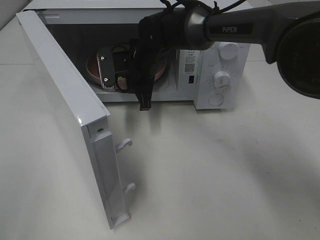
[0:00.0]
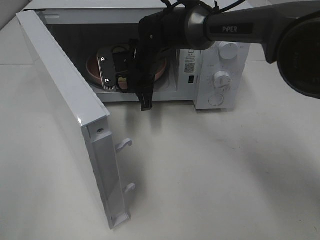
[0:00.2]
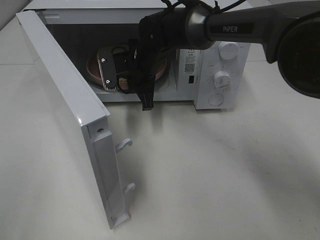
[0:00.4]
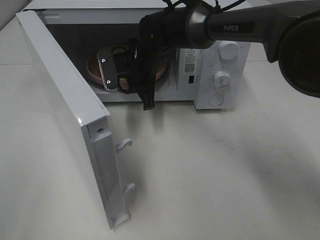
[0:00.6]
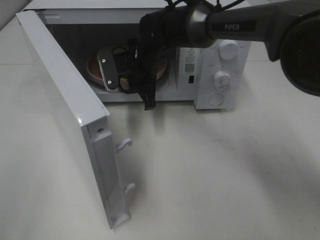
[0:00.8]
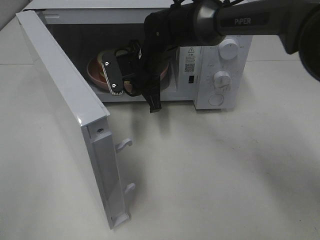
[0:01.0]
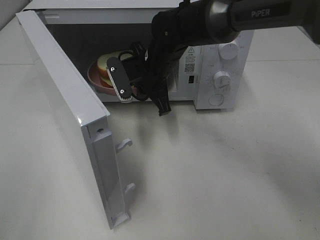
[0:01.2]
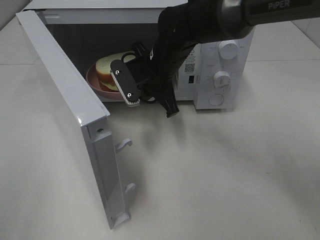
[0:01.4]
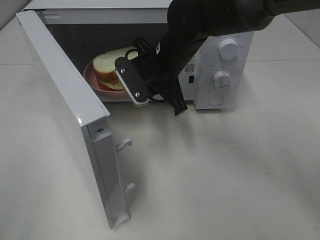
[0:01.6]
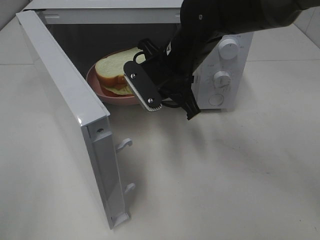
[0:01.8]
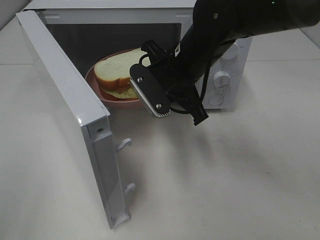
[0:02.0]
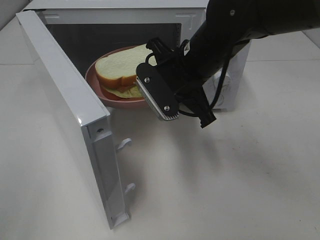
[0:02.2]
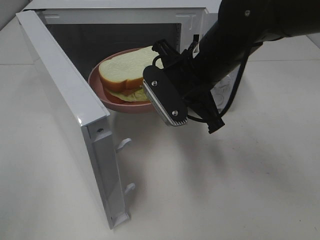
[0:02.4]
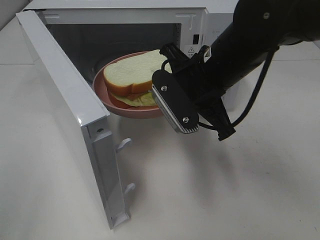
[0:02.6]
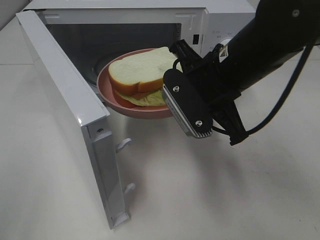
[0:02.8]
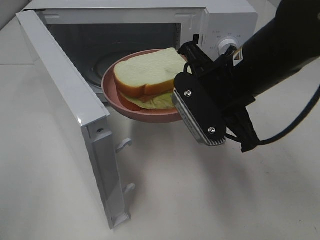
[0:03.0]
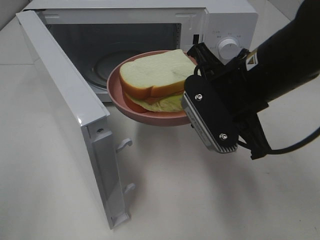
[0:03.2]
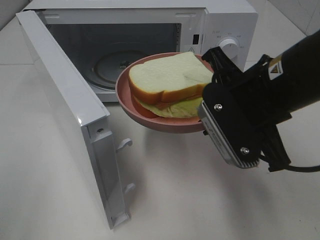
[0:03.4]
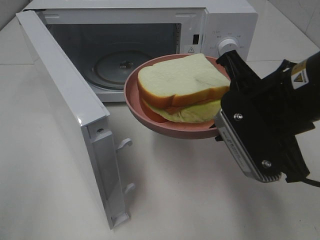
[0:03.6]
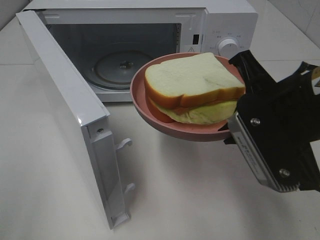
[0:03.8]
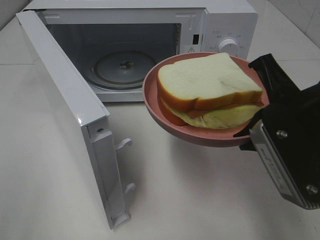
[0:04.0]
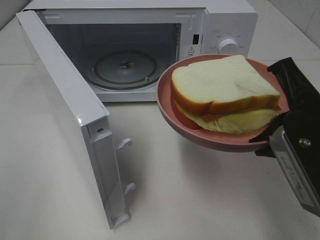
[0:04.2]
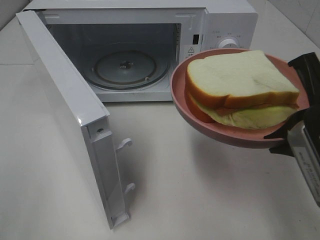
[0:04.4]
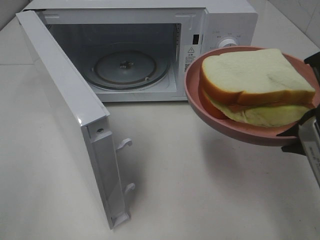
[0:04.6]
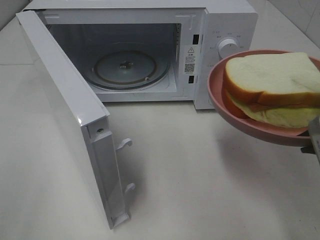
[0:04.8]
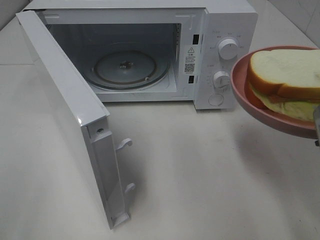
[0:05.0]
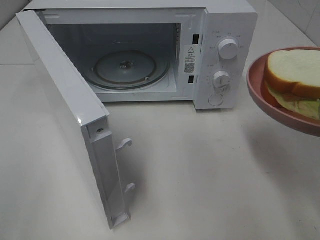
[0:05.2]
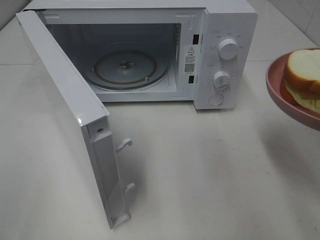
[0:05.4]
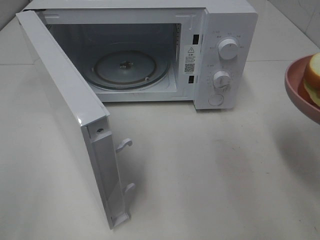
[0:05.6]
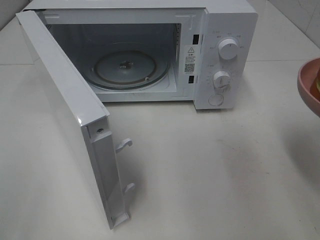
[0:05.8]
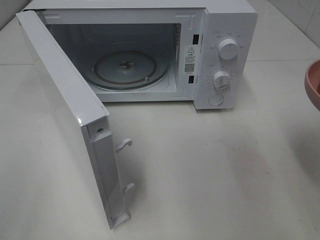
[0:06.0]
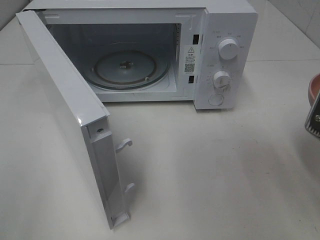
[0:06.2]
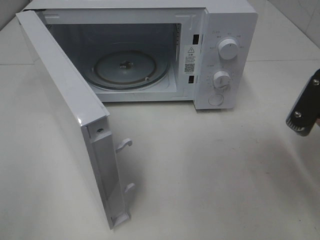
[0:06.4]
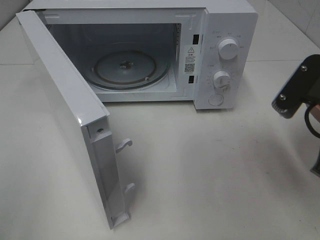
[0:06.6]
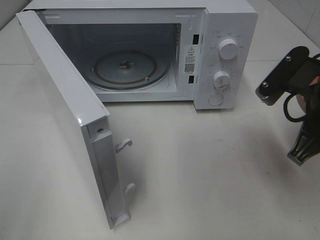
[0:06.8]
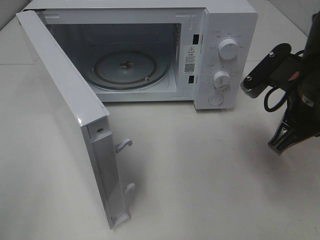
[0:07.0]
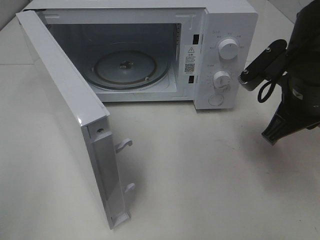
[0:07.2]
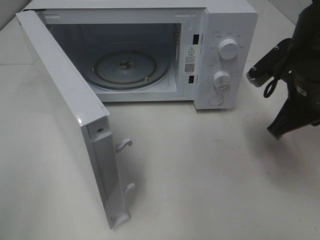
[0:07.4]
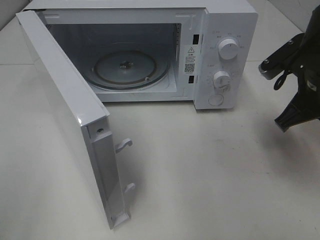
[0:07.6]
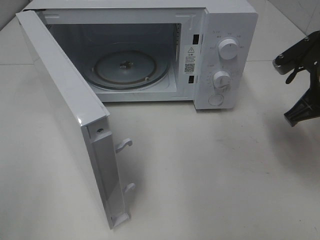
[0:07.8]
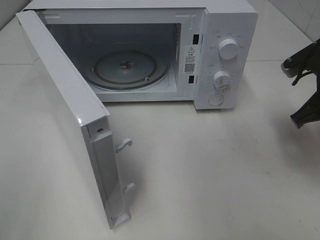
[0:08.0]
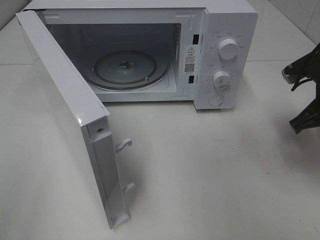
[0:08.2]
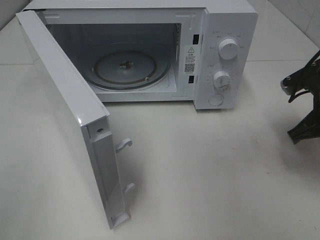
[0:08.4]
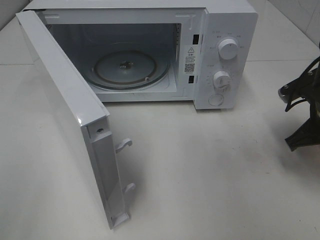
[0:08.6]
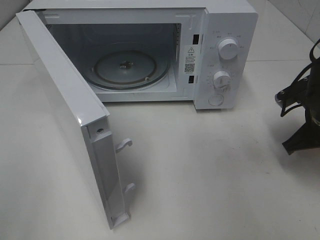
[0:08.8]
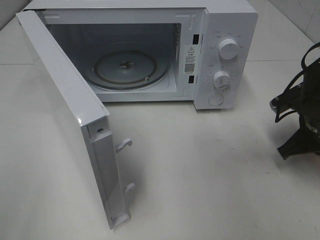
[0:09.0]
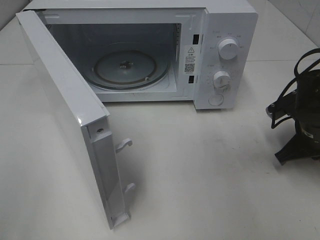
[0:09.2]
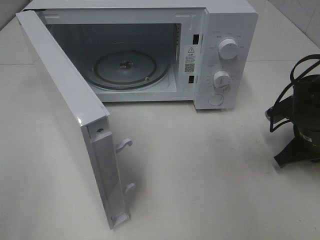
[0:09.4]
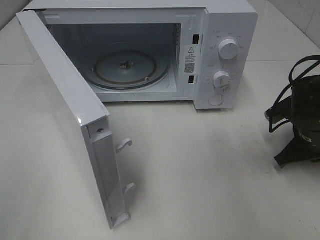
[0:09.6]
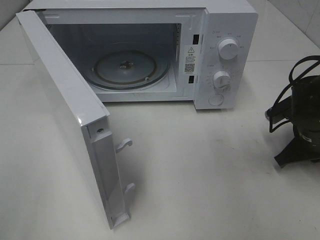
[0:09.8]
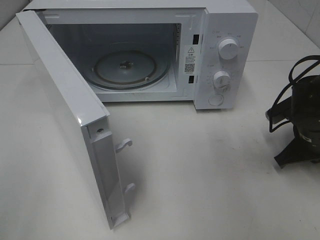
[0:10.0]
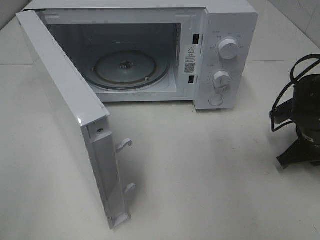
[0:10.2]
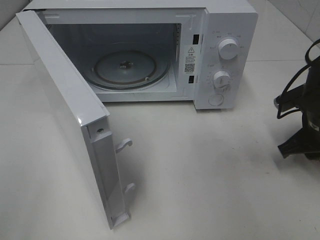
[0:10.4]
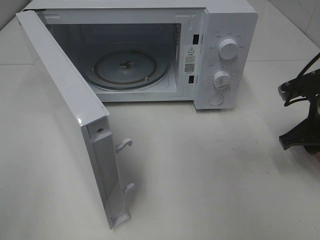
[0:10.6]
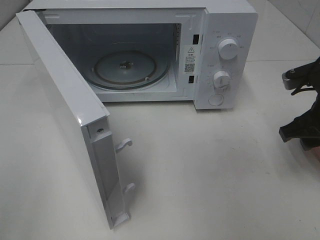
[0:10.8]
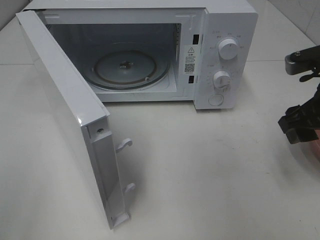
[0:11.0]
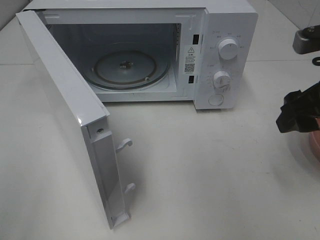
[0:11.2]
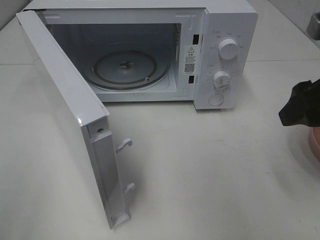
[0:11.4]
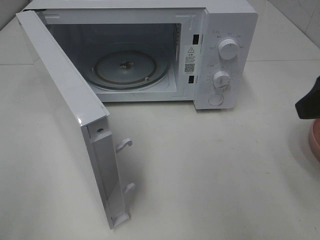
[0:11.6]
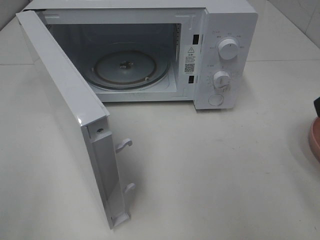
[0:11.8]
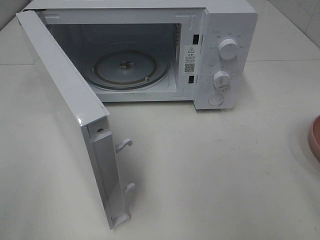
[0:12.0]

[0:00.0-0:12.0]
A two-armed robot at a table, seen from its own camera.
Task of the whole recording: Heat Sandwich.
Step, 0:00.0 to 0:11.0: Right hand: place the plate on the table.
0:00.0 to 0:01.6: The right gripper moves backward, approximately 5 cm.
0:01.6 to 0:03.0: The right gripper heads backward and to the right, covering roughly 15 cm.
0:03.0 to 0:04.4: The right gripper is displaced backward and to the right by roughly 15 cm.
0:06.0 to 0:07.6: The right gripper shifts some 15 cm forward and downward.
0:07.6 to 0:09.0: The right gripper is displaced downward by approximately 10 cm.
0:09.0 to 0:10.4: The right gripper opens its fingers.
0:10.4 to 0:12.0: The right gripper shifts roughly 25 cm upward and backward.

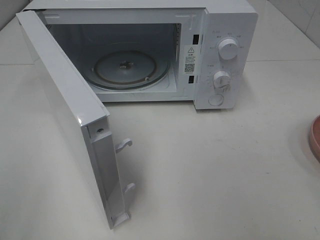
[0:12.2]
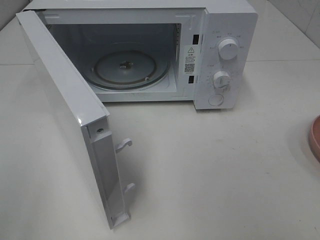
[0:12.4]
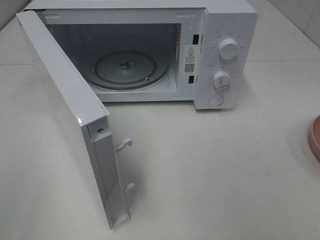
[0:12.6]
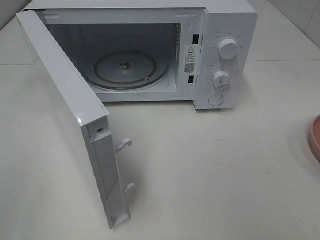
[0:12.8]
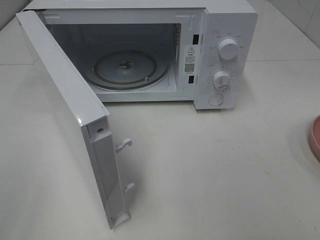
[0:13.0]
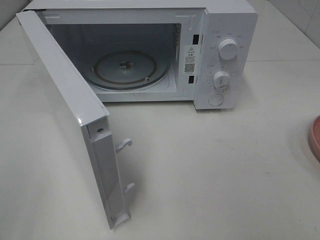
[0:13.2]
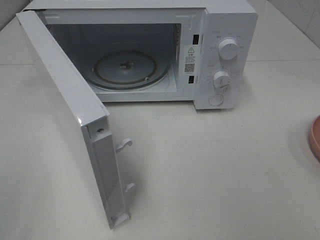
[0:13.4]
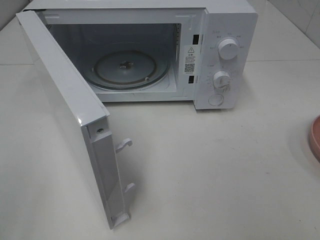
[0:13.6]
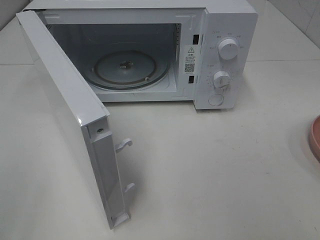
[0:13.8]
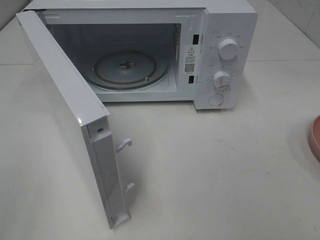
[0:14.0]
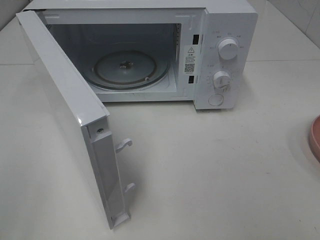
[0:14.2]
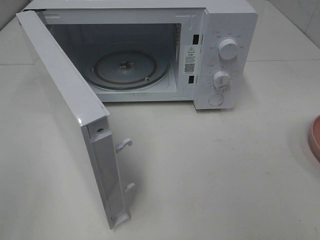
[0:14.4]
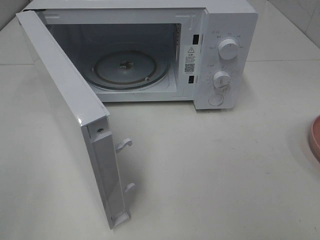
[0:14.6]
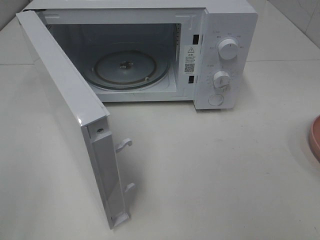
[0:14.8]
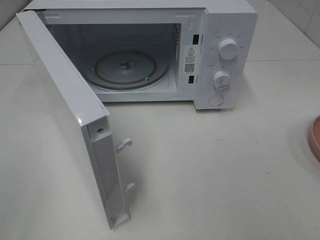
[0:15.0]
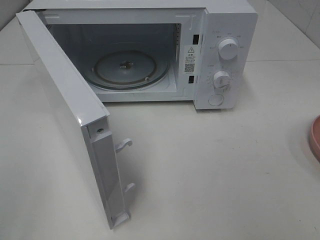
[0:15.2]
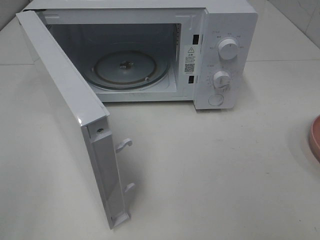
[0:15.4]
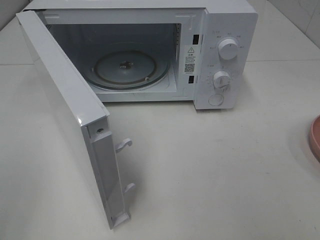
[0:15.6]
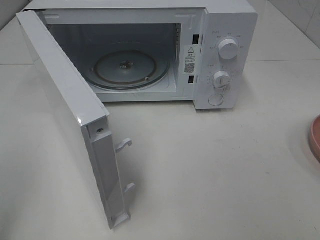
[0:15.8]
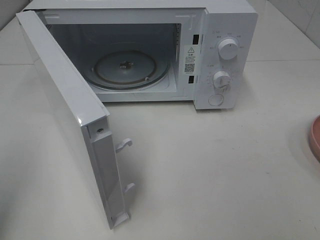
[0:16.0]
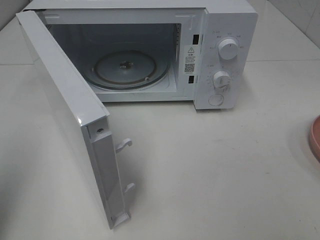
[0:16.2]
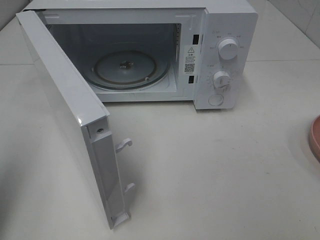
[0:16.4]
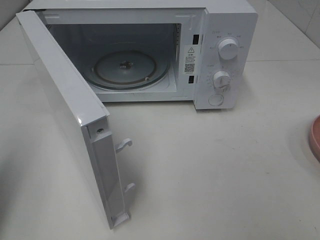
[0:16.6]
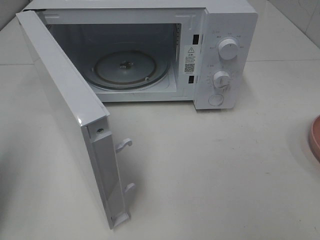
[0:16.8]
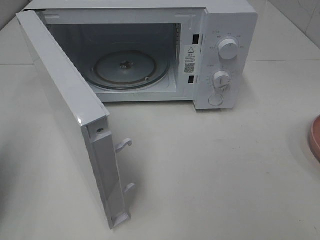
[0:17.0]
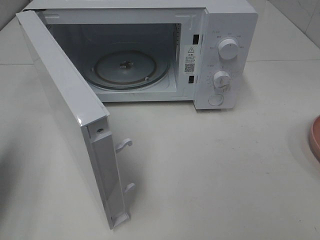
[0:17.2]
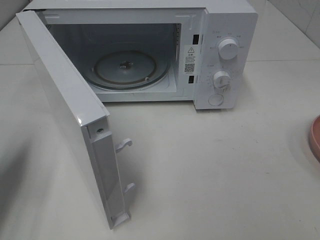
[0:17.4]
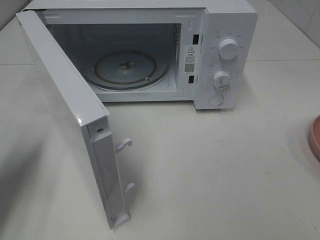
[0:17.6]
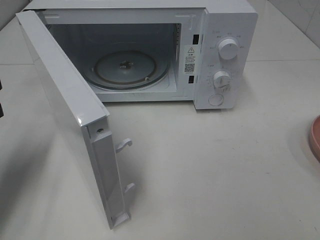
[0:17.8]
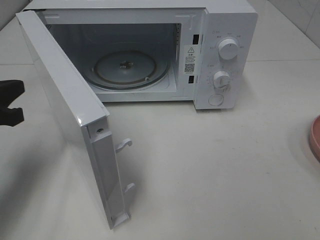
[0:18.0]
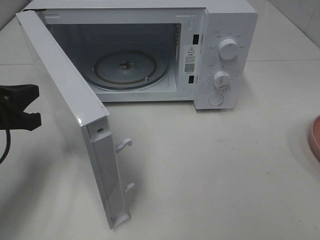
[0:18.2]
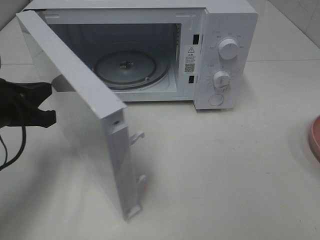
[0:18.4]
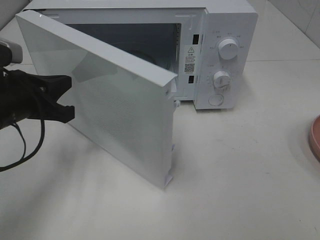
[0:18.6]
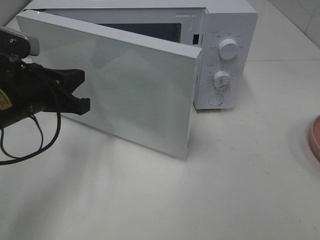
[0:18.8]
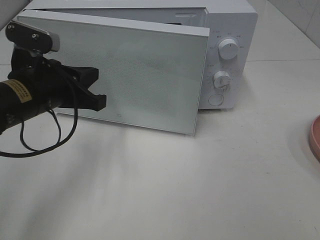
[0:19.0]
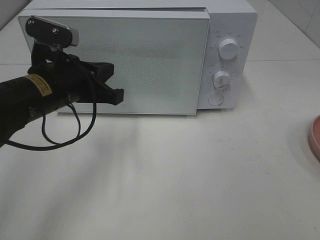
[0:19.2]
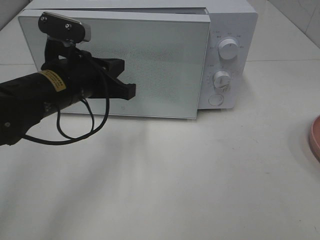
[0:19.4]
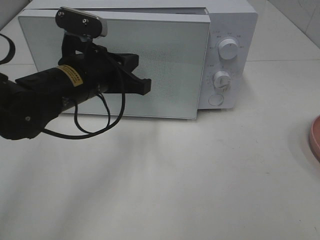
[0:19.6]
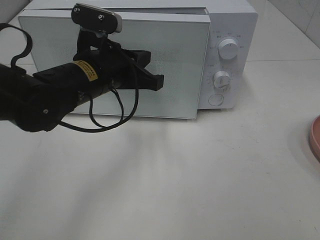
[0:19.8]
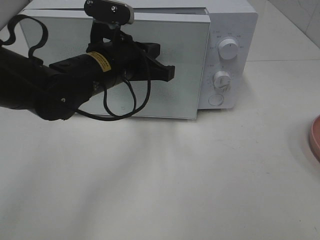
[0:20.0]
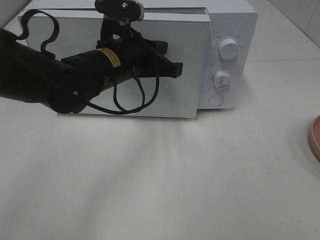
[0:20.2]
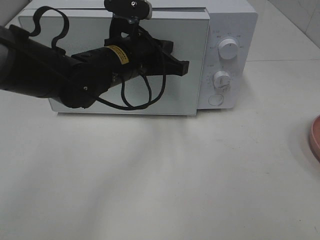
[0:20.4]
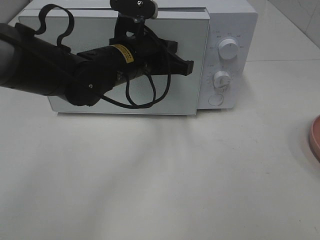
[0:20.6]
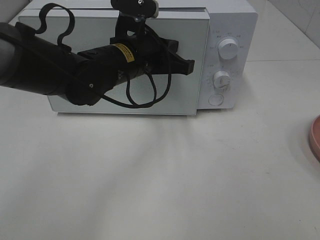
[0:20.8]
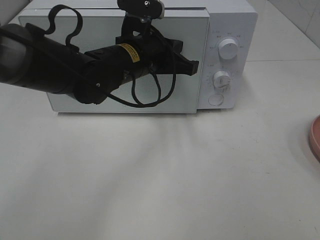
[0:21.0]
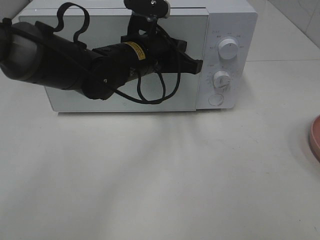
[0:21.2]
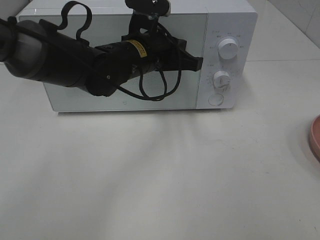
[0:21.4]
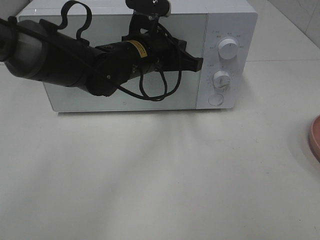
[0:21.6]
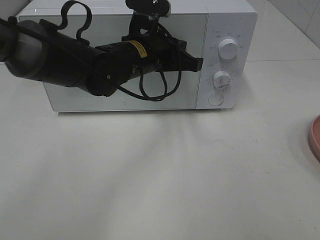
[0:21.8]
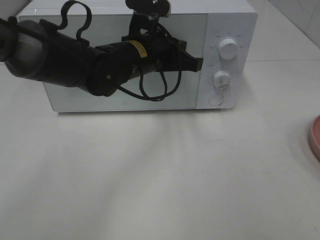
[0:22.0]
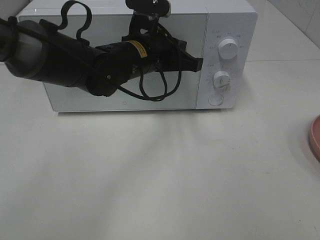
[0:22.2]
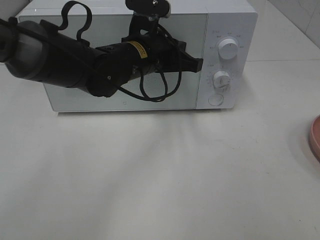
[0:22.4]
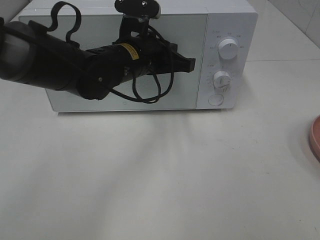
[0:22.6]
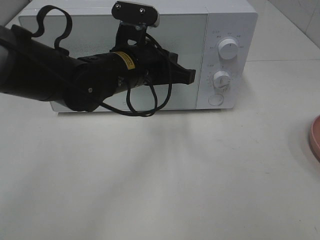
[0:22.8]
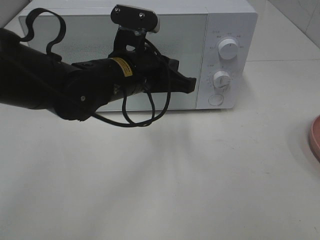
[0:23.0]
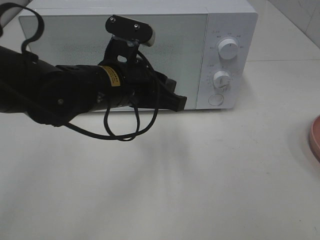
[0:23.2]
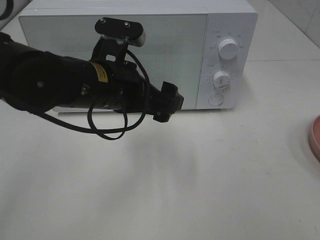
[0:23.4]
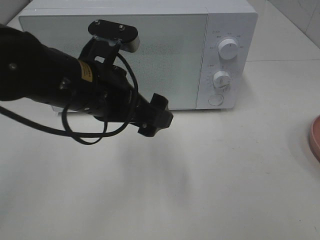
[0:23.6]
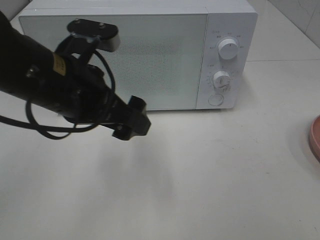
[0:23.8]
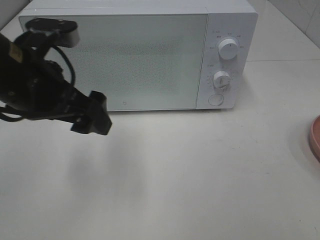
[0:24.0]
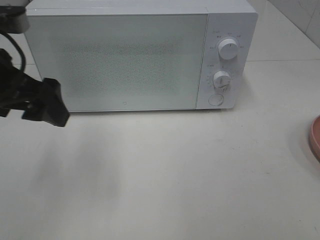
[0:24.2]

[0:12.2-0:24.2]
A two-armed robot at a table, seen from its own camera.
Task of the whole recording: Heat Sandwich.
Step, 0:12.2 to 0:23.0: Left hand: close the microwave door.
0:13.8 to 0:15.2: The two grippers keep their place.
0:15.2 to 0:16.6: The left gripper goes about 15 cm forward, and closes up.
0:16.6 to 0:18.2: The left gripper heads forward, downward and to the right, covering approximately 15 cm.
0:18.2 to 0:19.8: The left gripper is displaced to the right by approximately 15 cm.
0:19.8 to 0:21.2: The left gripper heads to the right and forward, covering about 10 cm.
0:21.2 to 0:22.6: The grippers make only small movements.
0:22.6 to 0:24.2: The left gripper travels to the left, backward and upward by roughly 20 cm, and opens its fingers.
